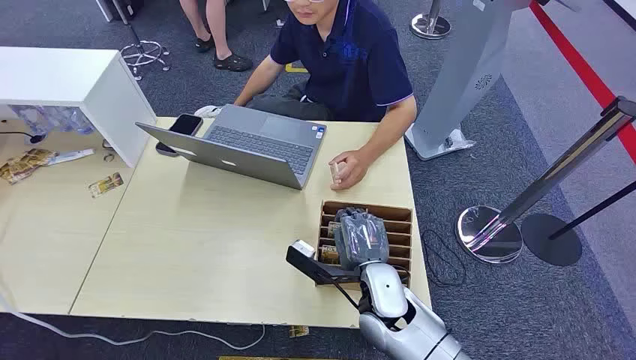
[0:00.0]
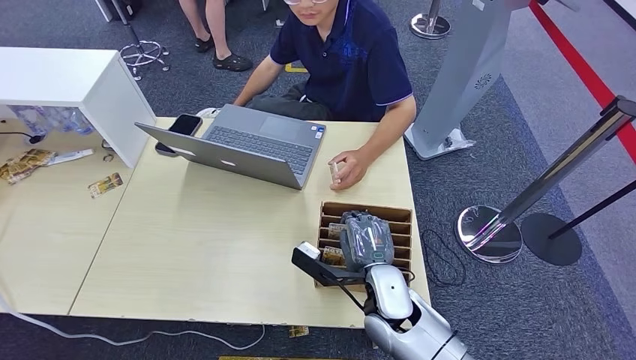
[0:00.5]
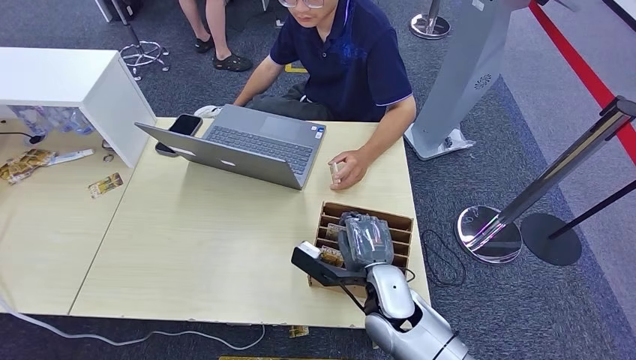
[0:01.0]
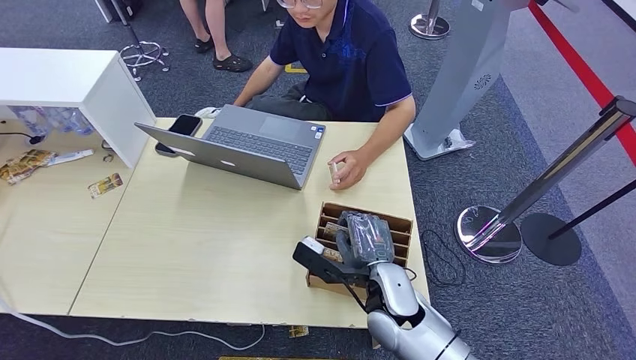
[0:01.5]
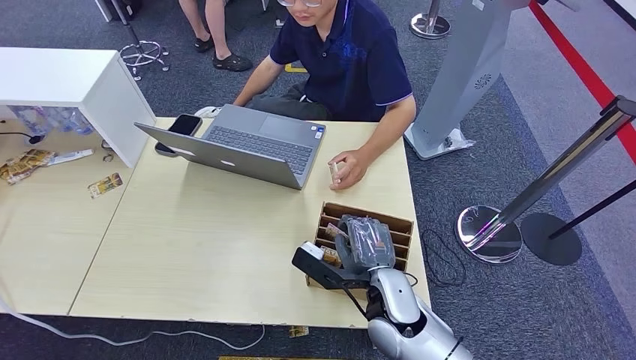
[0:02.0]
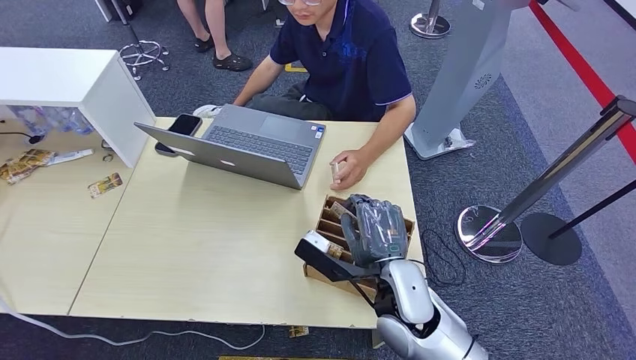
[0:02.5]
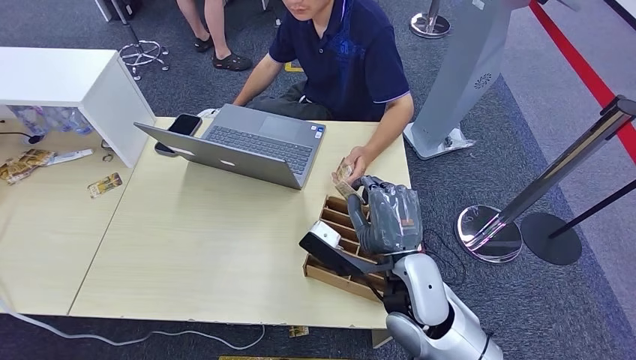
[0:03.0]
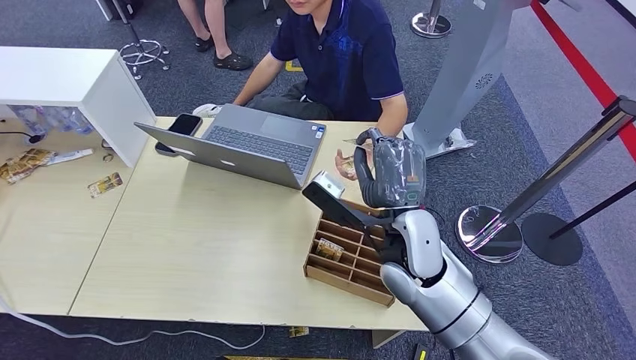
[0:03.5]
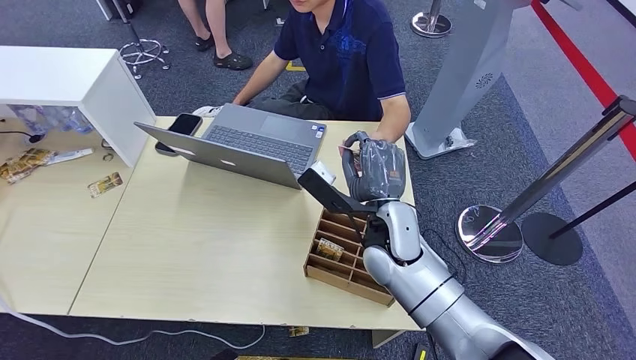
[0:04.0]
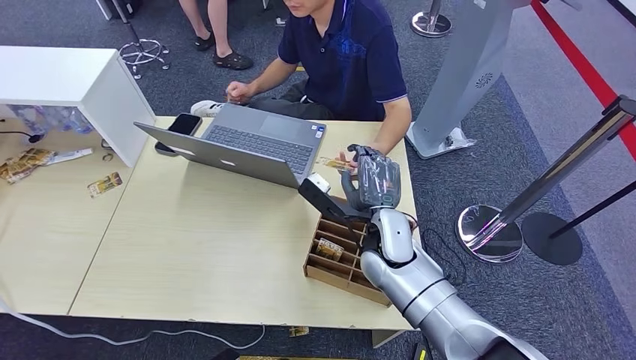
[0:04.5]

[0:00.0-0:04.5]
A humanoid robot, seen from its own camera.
Step, 0:00.0 to 0:02.5: Pick up the room card from the card holder.
0:02.0 to 0:04.5: The left hand ends up approximately 5 cm from where it was; the right hand shifts approximately 10 cm forward.
